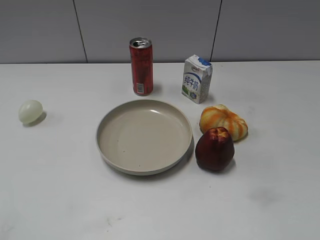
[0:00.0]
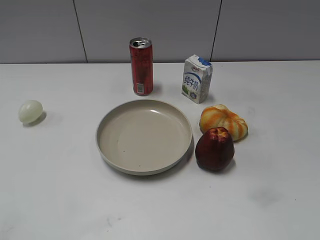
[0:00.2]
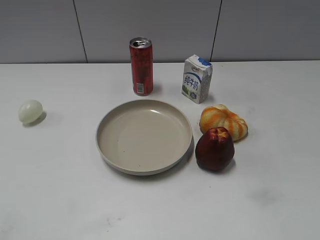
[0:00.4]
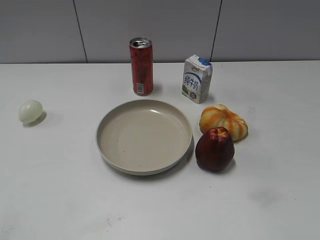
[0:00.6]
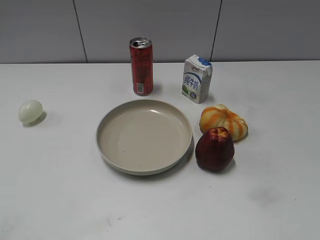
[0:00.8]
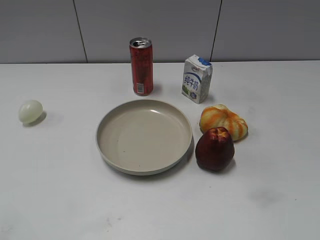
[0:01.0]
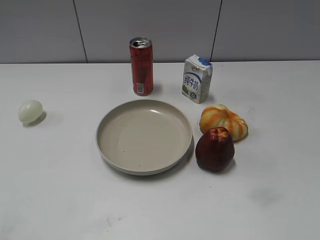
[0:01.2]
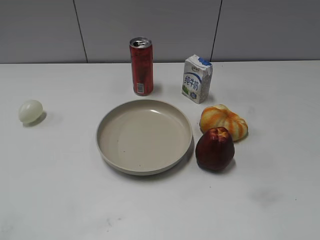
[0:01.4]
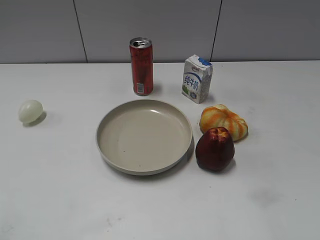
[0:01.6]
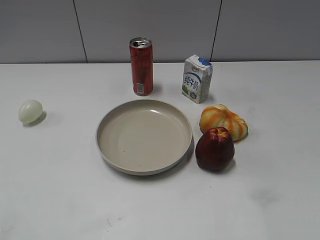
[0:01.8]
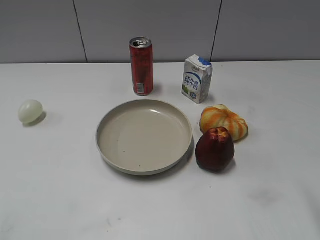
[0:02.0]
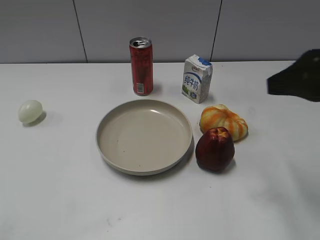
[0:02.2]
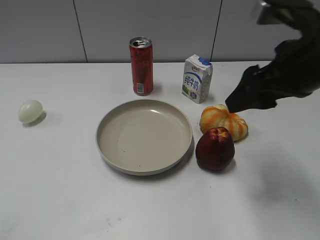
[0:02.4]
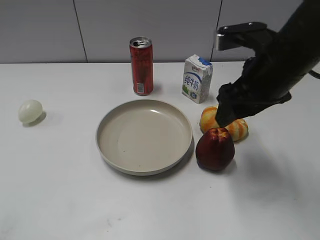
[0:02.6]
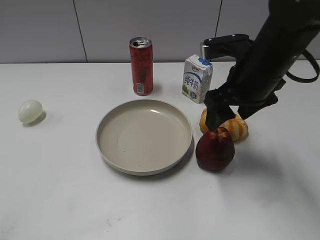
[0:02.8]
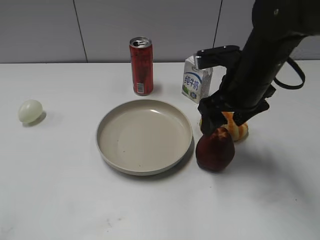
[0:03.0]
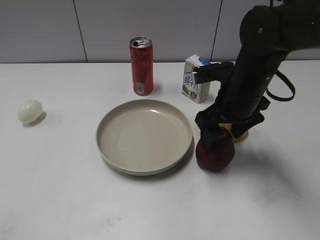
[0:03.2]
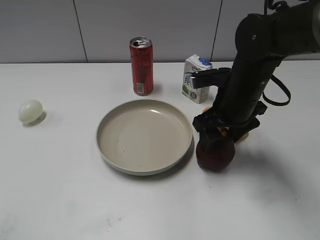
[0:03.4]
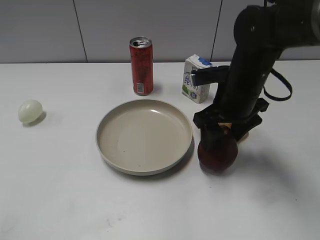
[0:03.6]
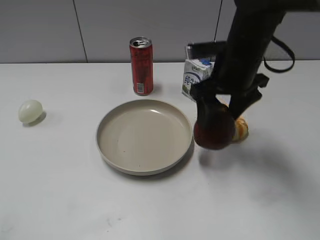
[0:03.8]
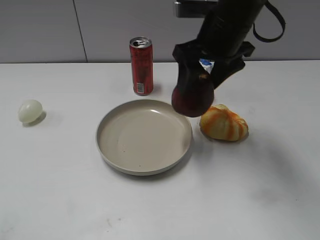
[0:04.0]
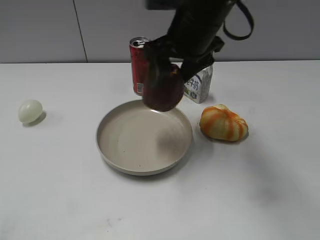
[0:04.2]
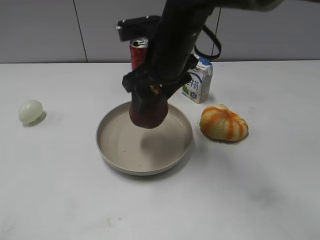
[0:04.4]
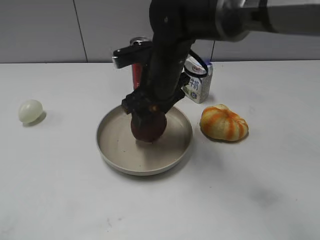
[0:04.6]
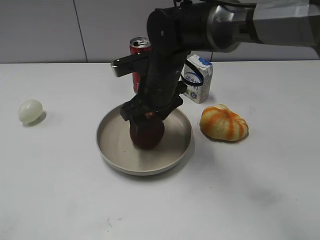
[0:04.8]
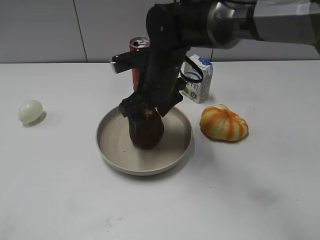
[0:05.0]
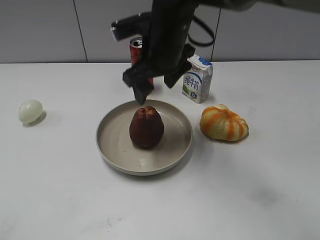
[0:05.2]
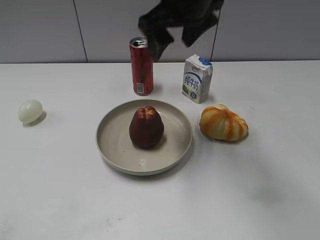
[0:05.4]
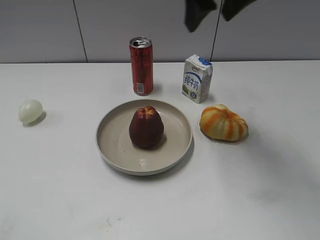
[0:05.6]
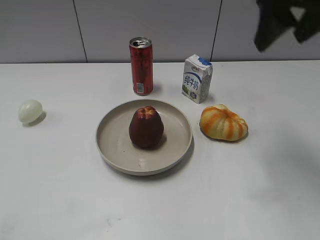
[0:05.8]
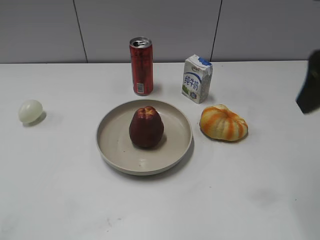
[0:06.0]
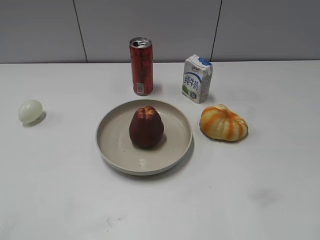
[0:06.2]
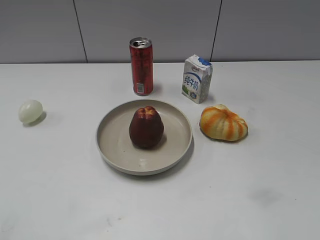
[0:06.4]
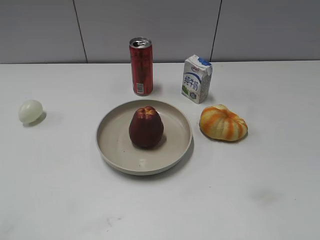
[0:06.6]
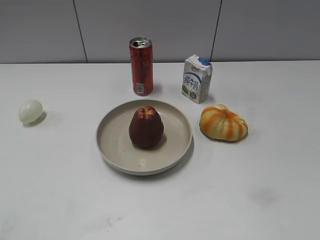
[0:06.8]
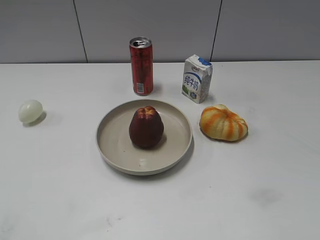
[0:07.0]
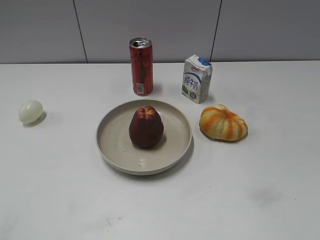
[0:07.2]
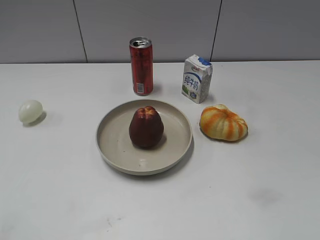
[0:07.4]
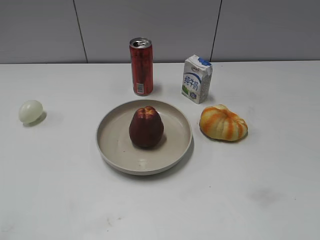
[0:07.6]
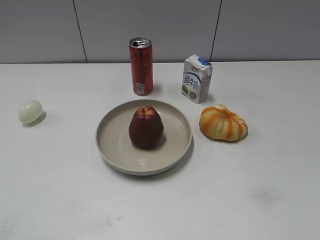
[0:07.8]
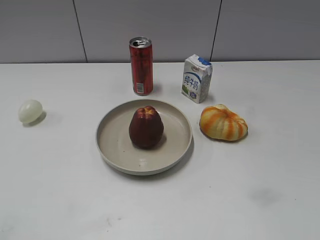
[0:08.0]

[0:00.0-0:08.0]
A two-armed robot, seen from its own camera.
Step, 0:01.2 to 0:03.4: Grasp the apple with right gripper.
Step, 0:03.6 to 0:05.2: Place the apple on the plate with right gripper.
0:01.6 to 0:03.2: The right gripper shifts approximately 35 cm forward, to the left and downward.
0:03.2 to 0:04.8: The right gripper moves to the left, some 15 cm.
0:04.8 to 0:06.4: The right gripper goes about 40 cm to the right, backward and upward.
